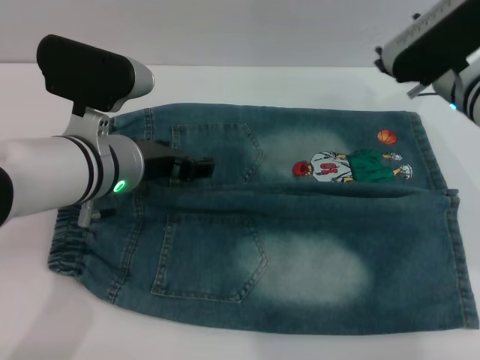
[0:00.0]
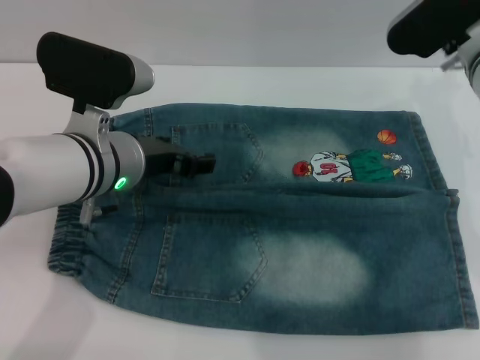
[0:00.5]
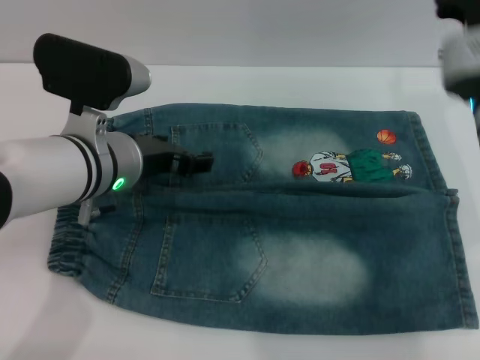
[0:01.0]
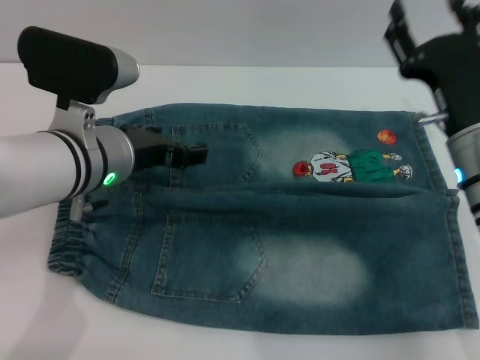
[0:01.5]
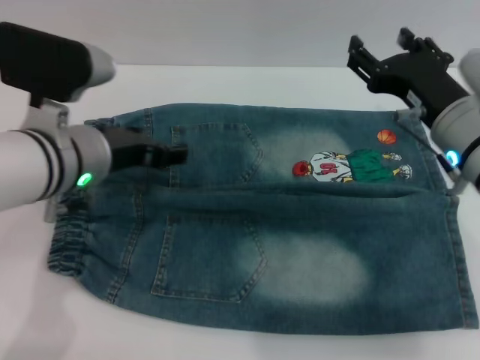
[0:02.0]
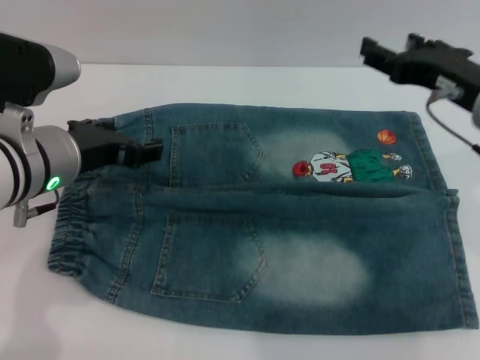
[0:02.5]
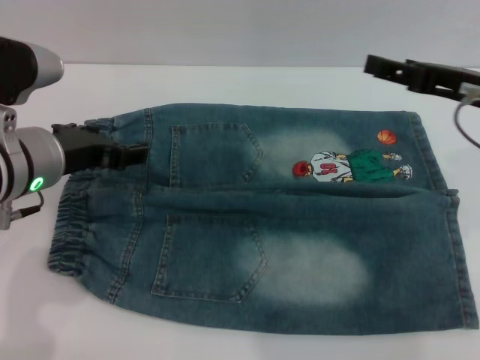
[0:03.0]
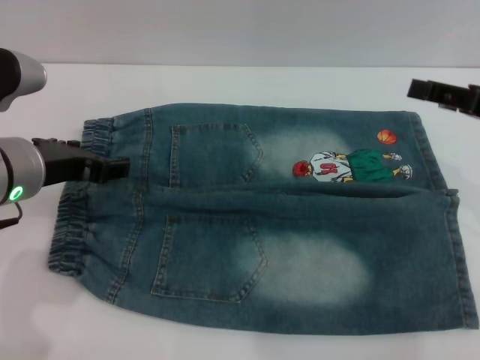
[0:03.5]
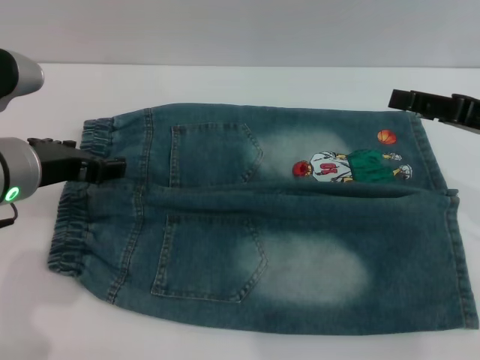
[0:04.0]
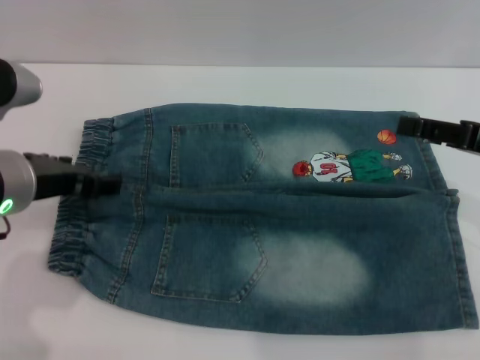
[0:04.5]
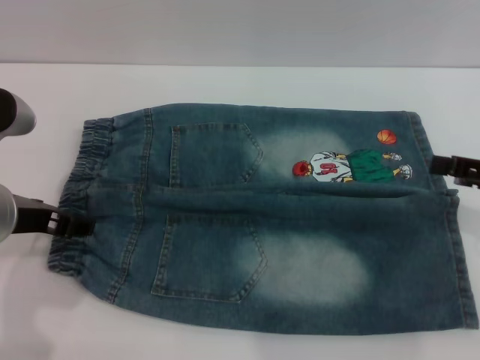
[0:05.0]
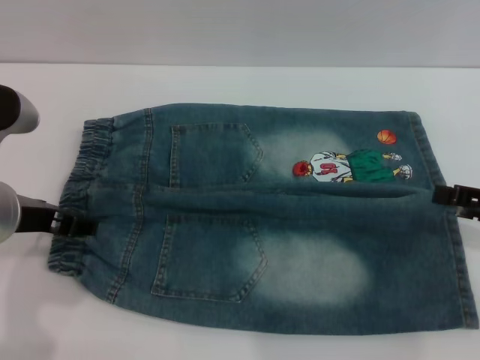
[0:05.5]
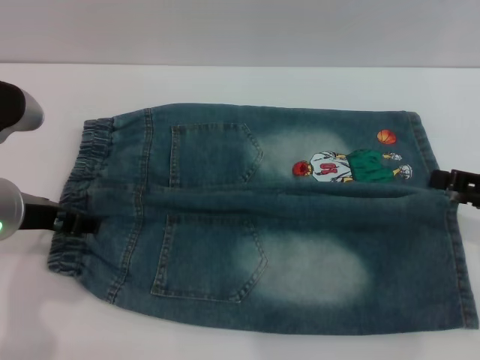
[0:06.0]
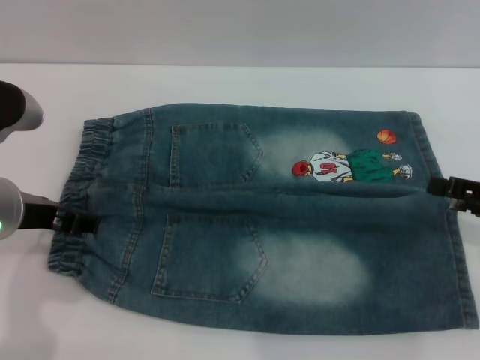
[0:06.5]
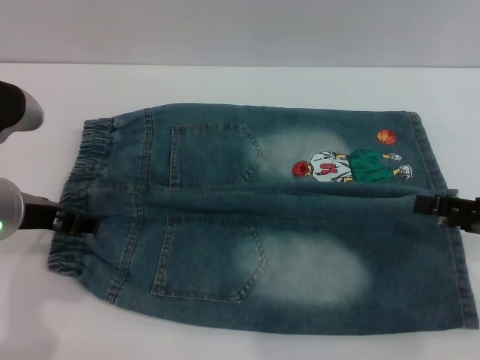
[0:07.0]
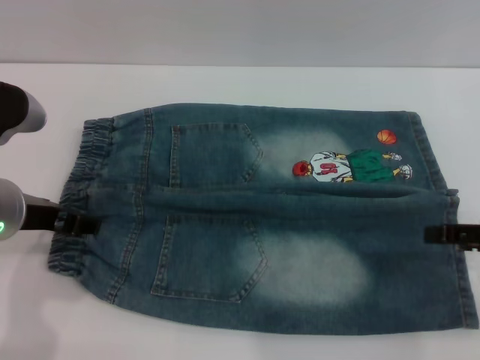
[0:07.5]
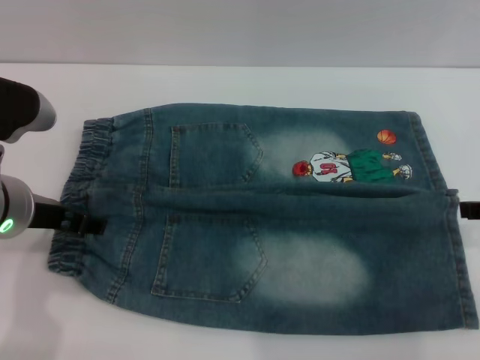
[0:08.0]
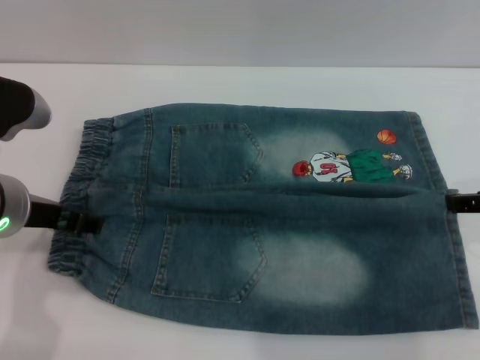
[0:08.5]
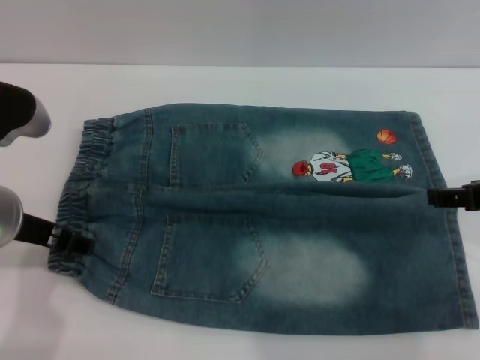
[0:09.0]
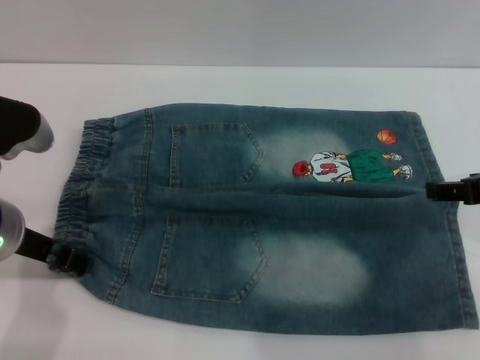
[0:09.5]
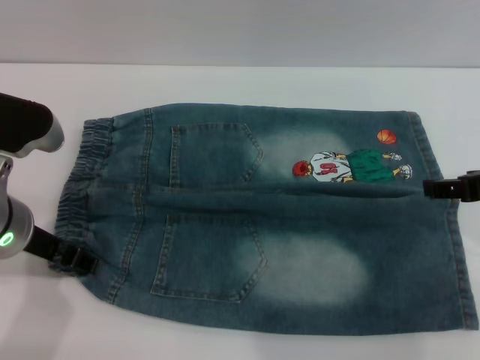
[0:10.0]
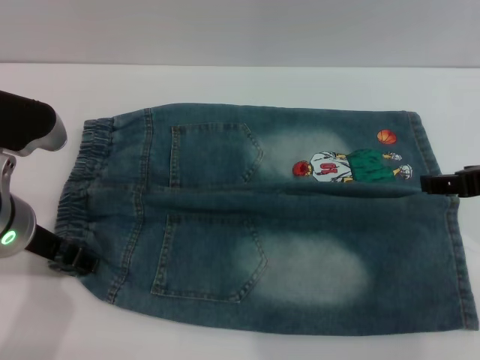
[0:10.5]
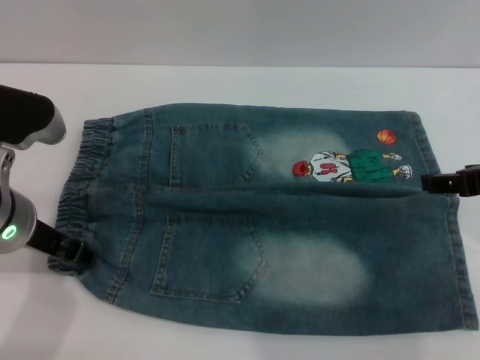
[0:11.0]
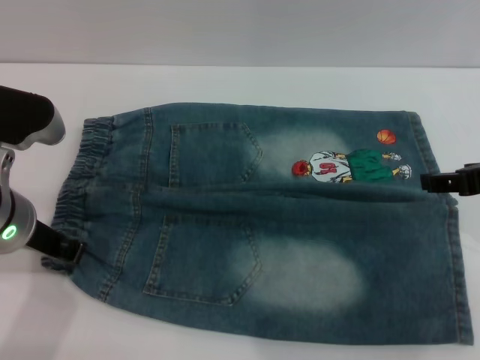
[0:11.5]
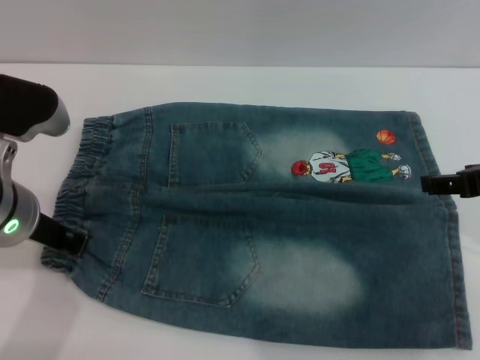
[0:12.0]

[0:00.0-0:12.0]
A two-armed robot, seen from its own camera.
0:00.0 to 0:02.0: The right gripper shifts some 10 cm backward.
0:02.0 to 0:04.0: The right gripper is displaced to the right by roughly 10 cm. Meanwhile the left gripper moves roughly 5 cm.
0:04.0 to 0:06.0: The right gripper moves some 10 cm.
0:08.0 to 0:10.0: The grippers stay close to where they were, moving slightly.
0:10.0 to 0:12.0: The left gripper closes.

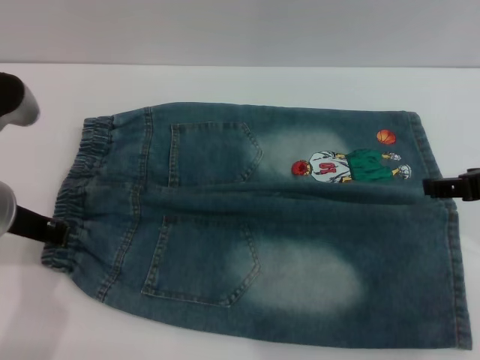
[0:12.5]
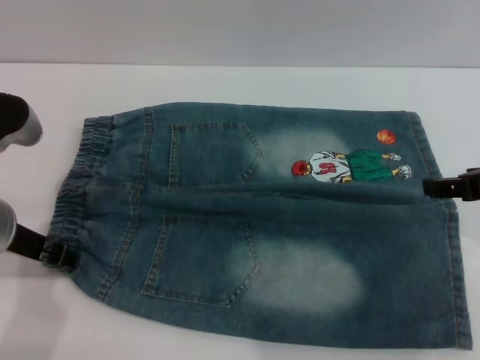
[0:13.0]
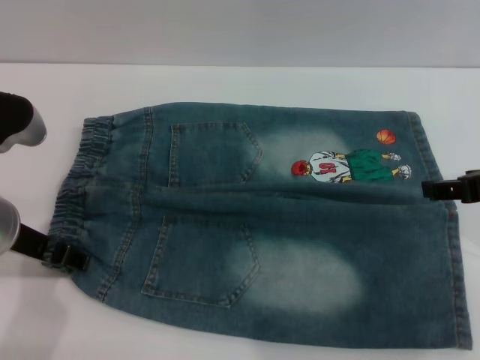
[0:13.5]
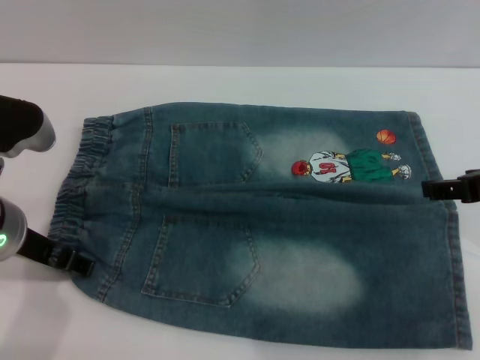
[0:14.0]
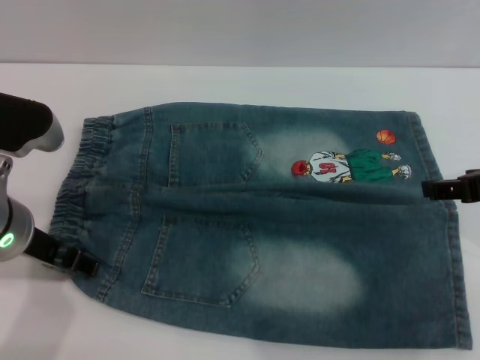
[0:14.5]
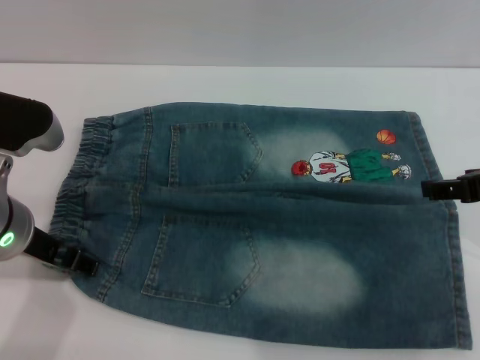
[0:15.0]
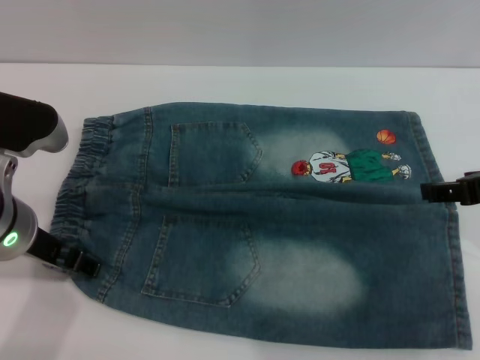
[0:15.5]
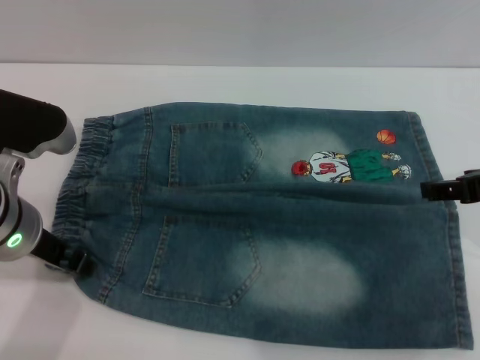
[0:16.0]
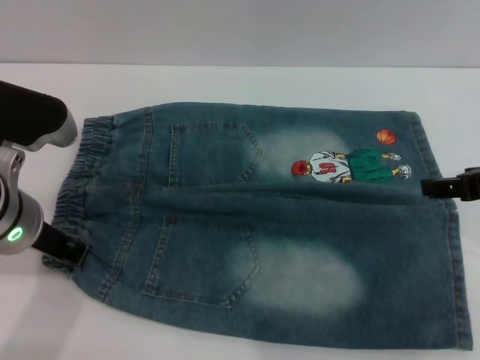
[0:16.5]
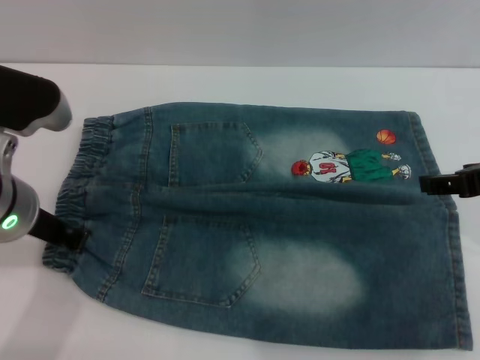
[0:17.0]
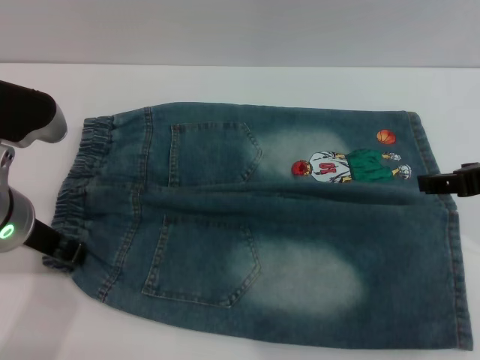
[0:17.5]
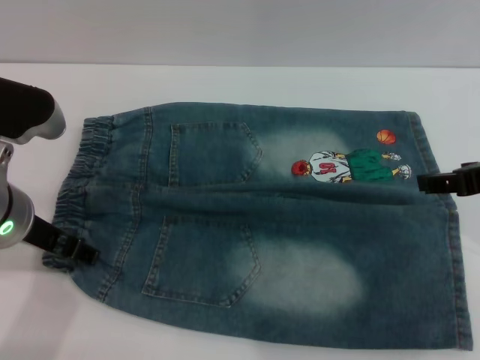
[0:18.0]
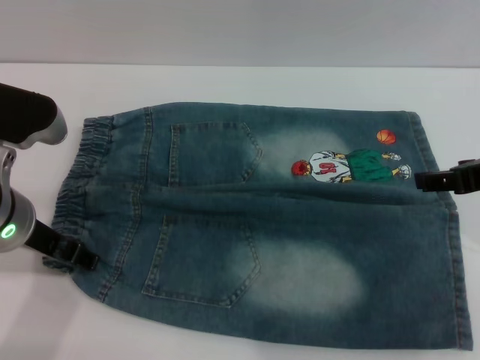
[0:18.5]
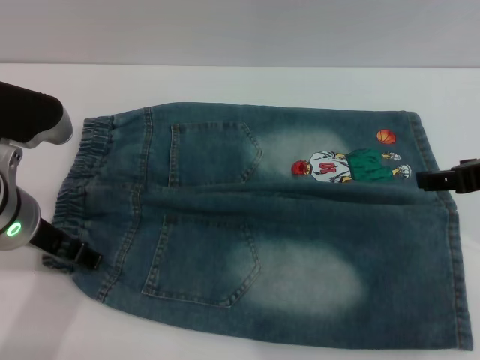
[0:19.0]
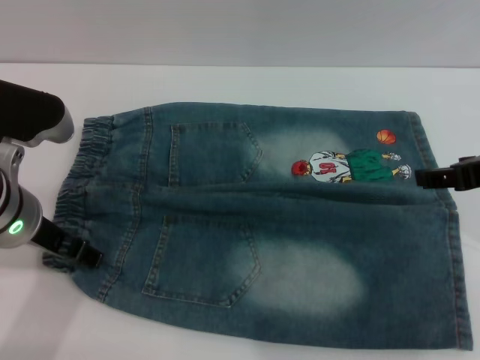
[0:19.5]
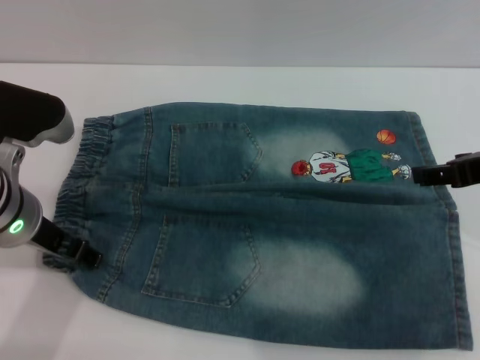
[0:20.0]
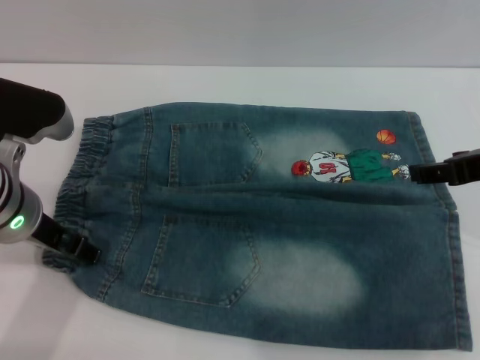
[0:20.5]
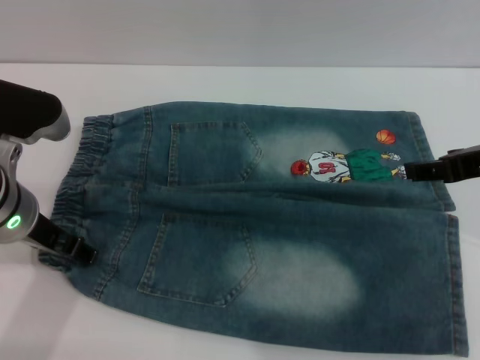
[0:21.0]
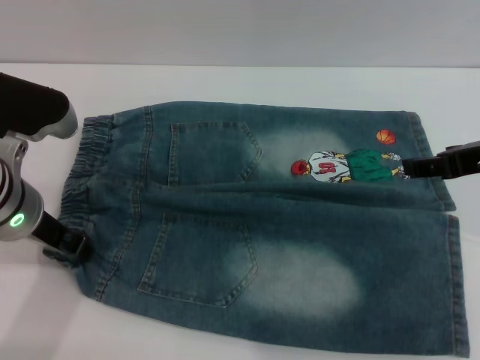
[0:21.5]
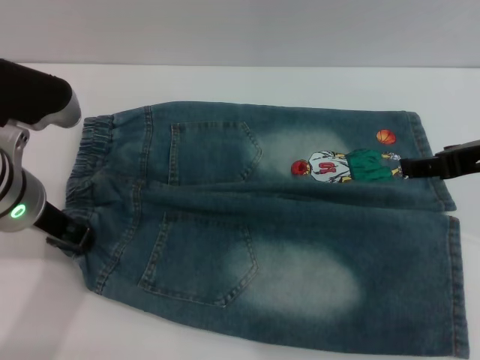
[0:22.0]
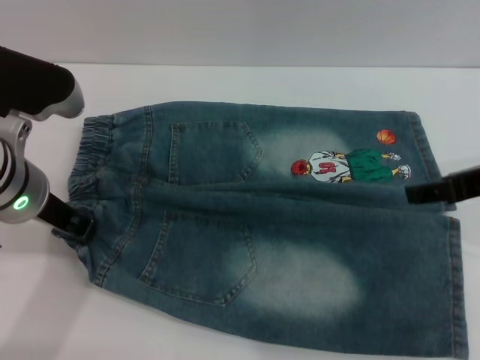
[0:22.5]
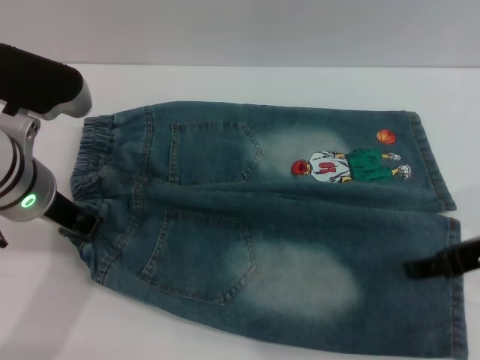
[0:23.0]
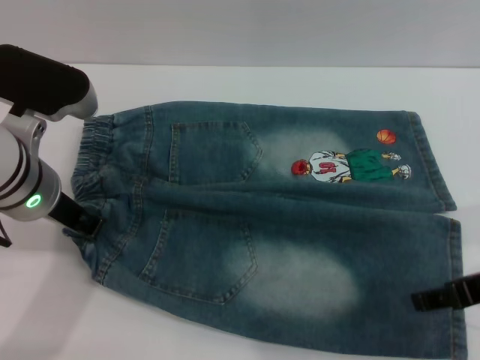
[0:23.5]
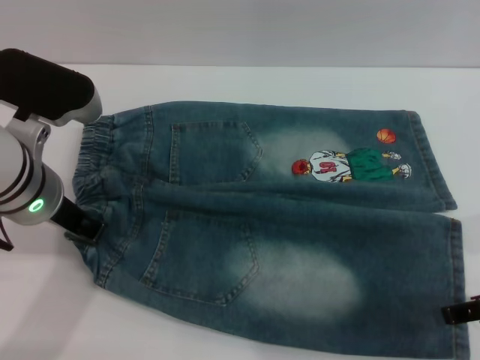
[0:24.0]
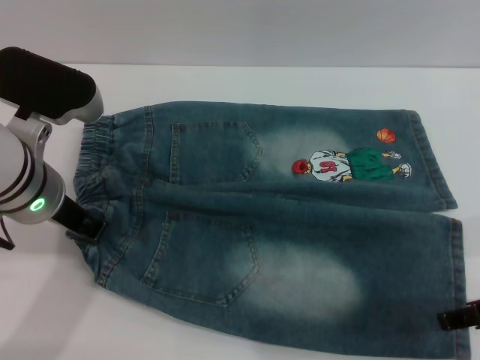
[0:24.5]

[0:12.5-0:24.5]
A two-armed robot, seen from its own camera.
0:12.5 to 0:14.5: The left gripper opens its fingers.
0:14.5 to 0:16.5: The left gripper closes.
0:16.5 to 0:18.5: The left gripper opens its fingers.
0:18.5 to 0:20.5: There are only small adjustments of the grippers.
0:20.5 to 0:22.5: The left gripper closes up.
0:22.5 to 0:24.5: The right gripper heads backward and downward, covering roughly 10 cm.

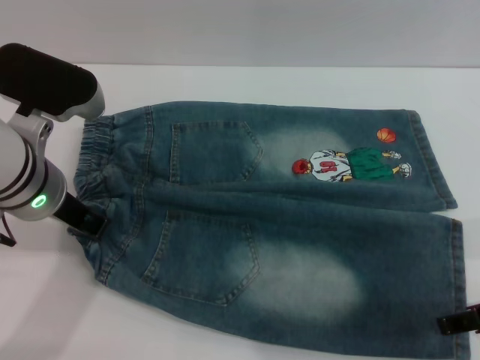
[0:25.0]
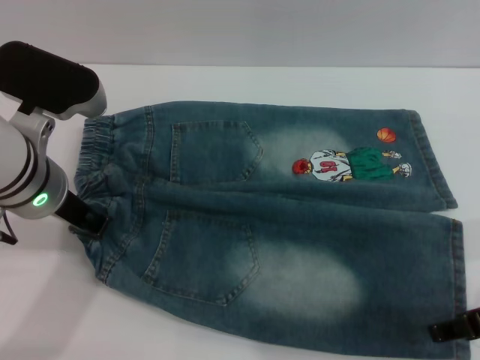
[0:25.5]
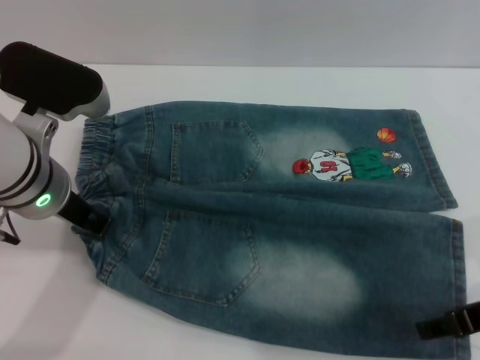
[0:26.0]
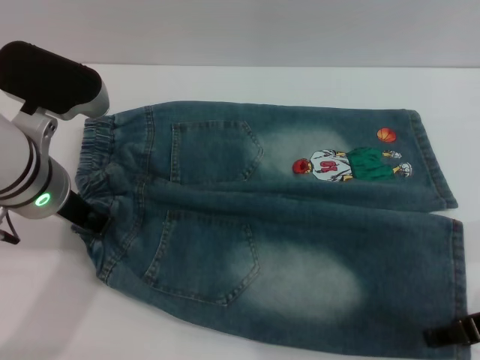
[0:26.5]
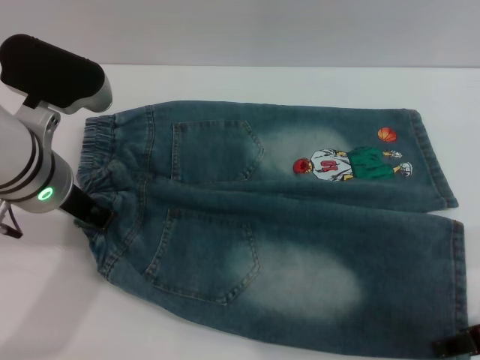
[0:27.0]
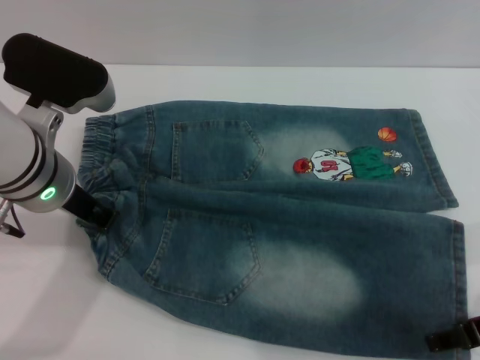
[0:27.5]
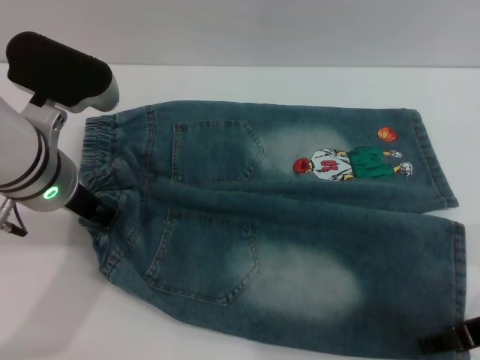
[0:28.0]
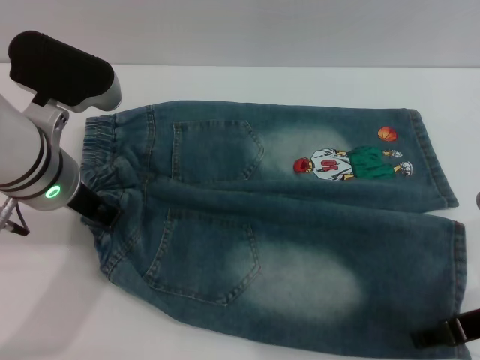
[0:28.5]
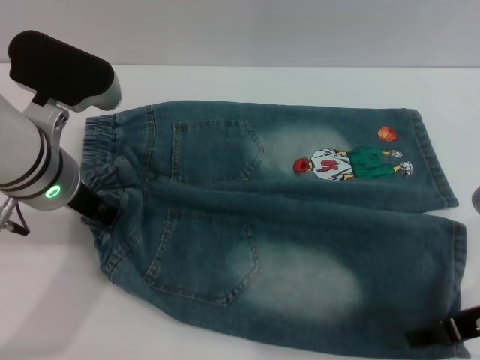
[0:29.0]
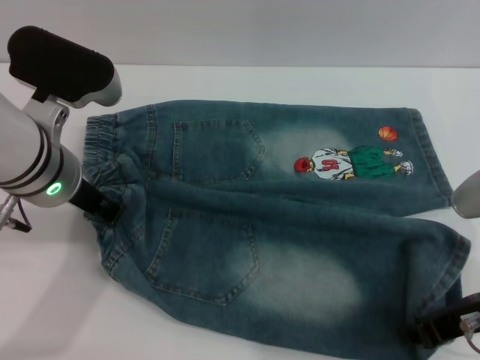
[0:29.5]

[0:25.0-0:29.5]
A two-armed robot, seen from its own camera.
0:25.0 to 0:27.0: The grippers make only small movements.
0:27.0 to 0:29.5: The right gripper closes up.
